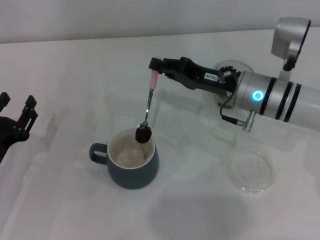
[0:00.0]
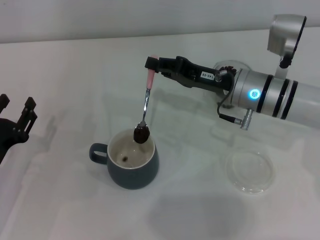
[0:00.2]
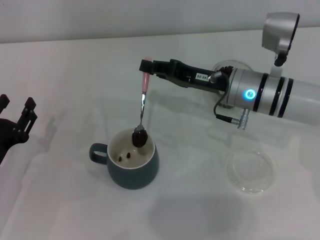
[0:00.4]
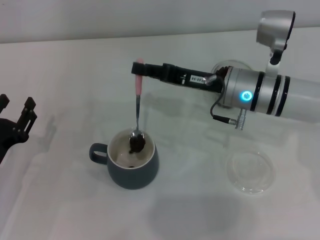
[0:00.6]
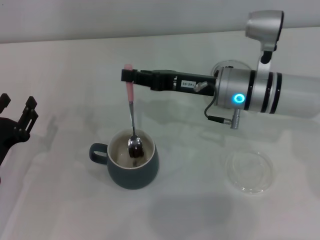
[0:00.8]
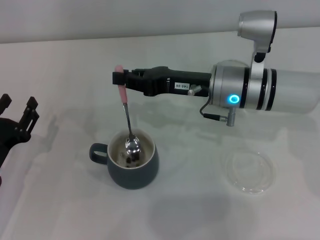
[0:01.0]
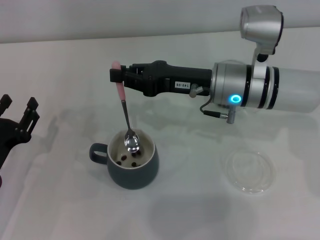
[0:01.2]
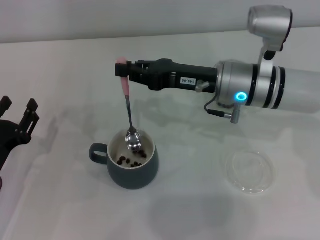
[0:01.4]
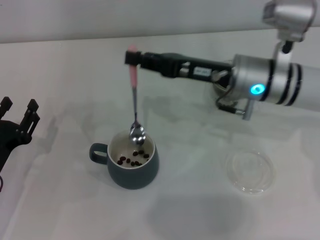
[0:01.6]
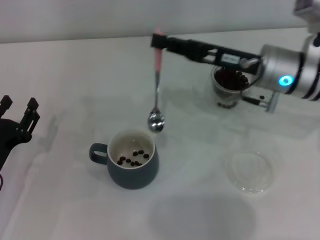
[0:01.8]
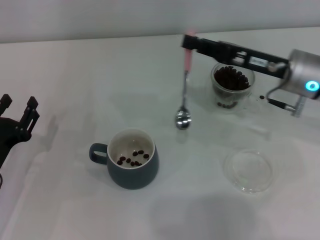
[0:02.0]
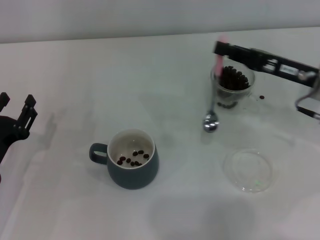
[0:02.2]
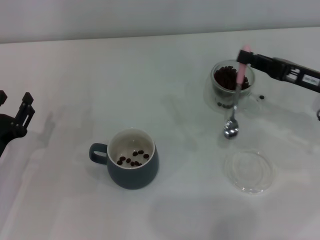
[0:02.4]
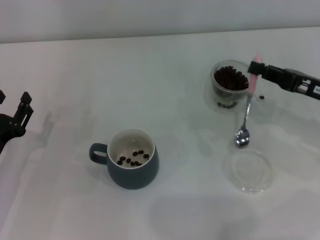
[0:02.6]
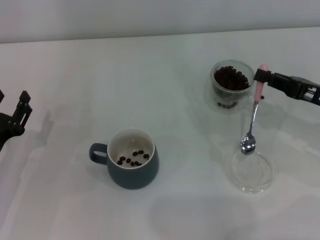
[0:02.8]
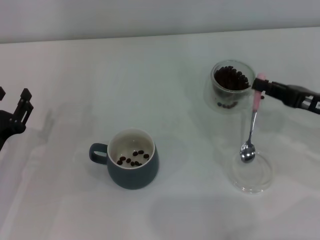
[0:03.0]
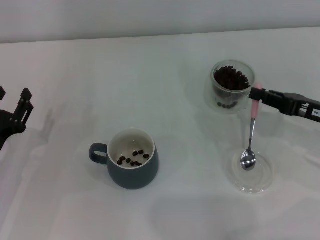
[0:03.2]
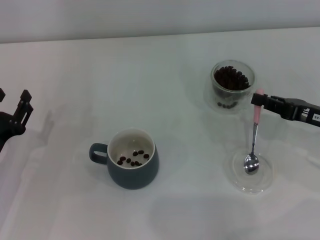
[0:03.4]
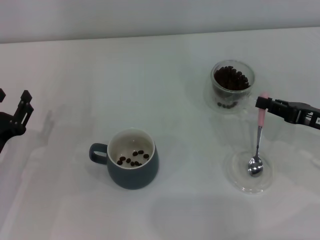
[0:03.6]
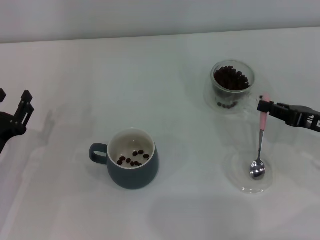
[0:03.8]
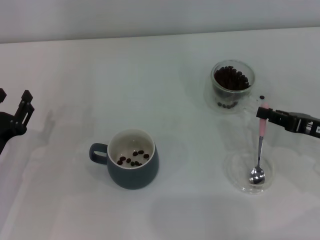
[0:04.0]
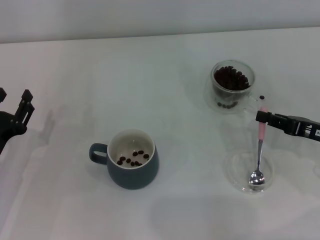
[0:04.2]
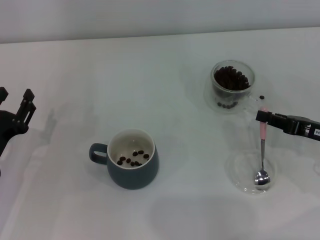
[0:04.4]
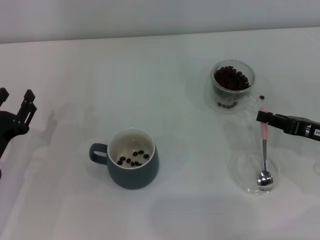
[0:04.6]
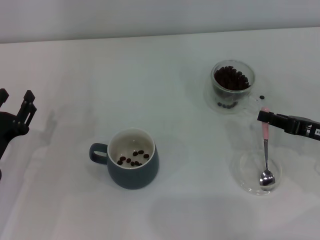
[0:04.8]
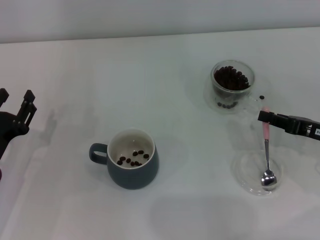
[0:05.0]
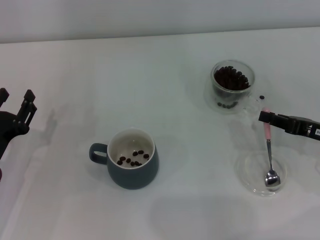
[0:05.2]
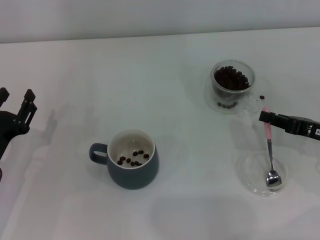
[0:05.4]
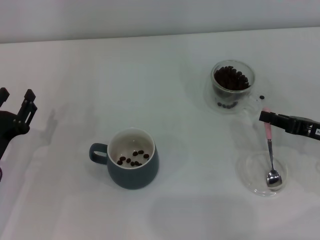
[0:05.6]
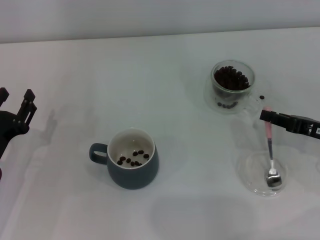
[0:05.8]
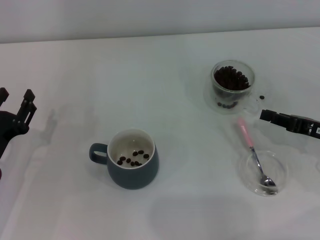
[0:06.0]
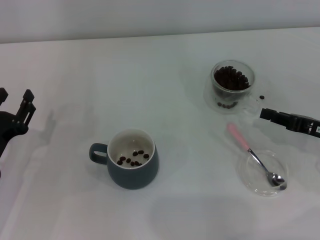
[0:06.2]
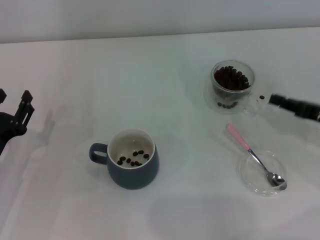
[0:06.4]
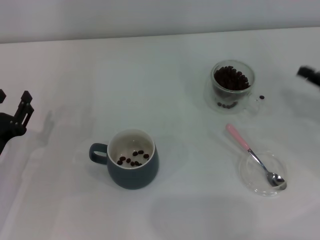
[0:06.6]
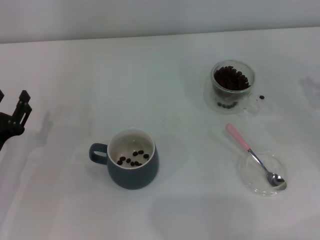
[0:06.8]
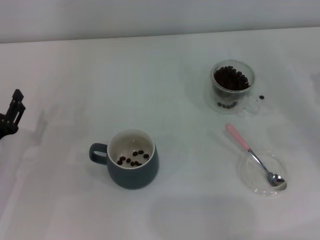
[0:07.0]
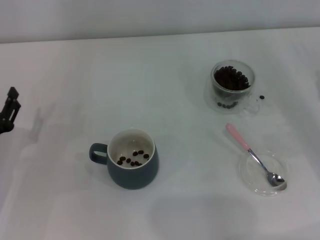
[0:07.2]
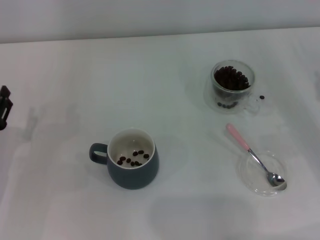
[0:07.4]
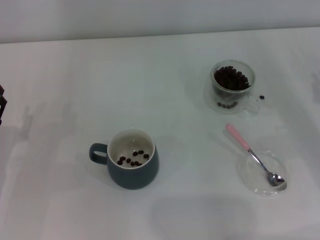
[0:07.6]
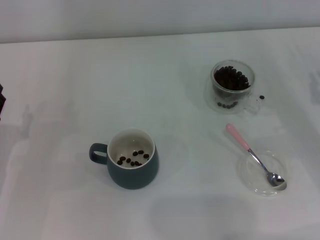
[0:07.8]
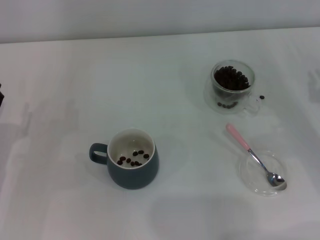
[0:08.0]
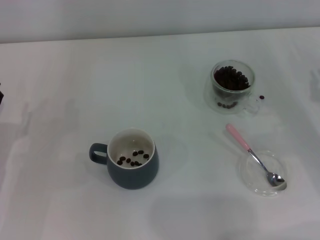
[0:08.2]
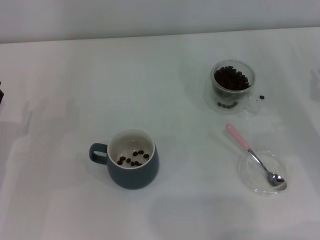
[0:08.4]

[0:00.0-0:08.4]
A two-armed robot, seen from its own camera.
Task of the whole recording: Use a pink spoon to take out the coffee beans from the glass and pour them into the gray cup.
Step, 0:01.2 to 0:05.8: Place the spoon back in its original place with the right gripper.
0:01.4 to 0:02.8: The right gripper travels to the right and backward by about 20 cm.
0:02.8 to 0:04.2: The grippers stay close to where they were, moving slightly.
0:04.2 to 0:05.6: Neither gripper changes place.
0:05.6 to 0:07.0: The right gripper moves to the right, some 5 cm.
0:07.0 to 0:08.4: There are only small adjustments of the grippers.

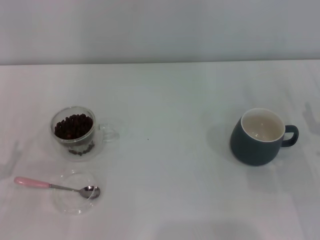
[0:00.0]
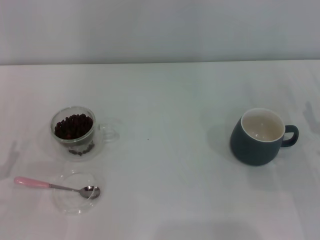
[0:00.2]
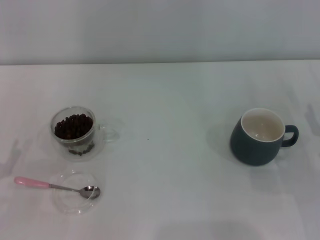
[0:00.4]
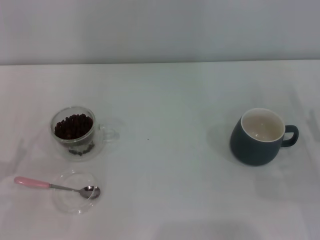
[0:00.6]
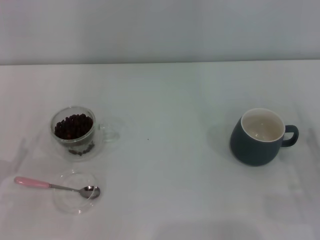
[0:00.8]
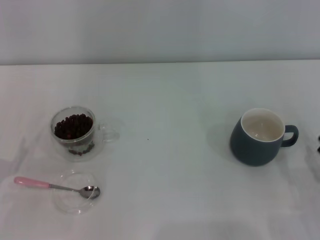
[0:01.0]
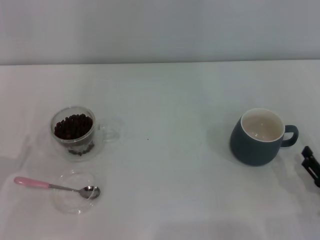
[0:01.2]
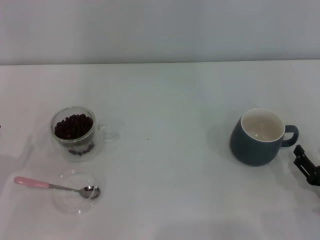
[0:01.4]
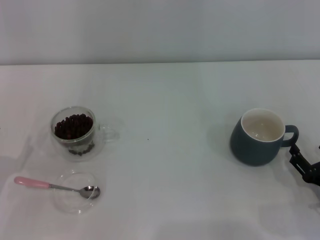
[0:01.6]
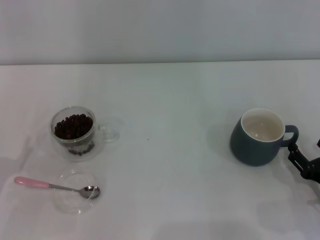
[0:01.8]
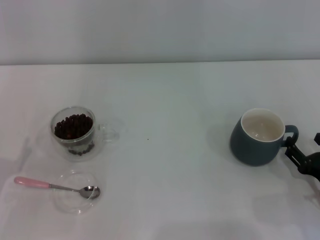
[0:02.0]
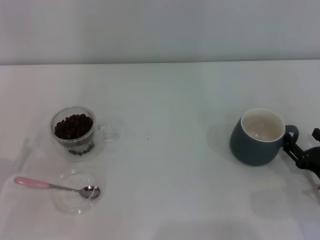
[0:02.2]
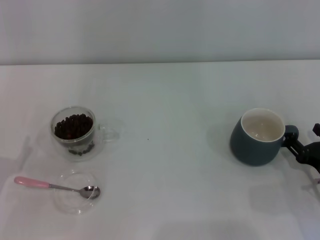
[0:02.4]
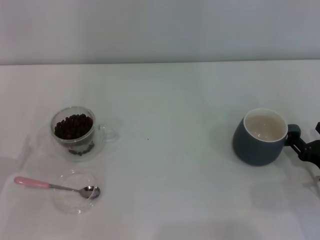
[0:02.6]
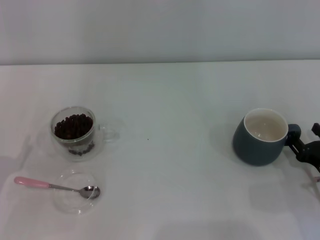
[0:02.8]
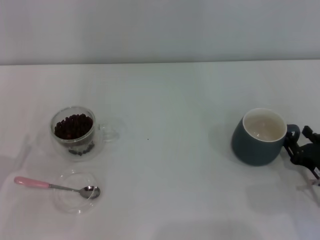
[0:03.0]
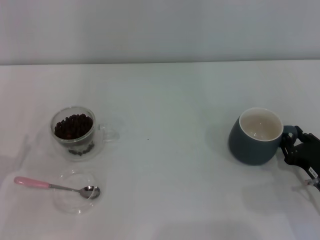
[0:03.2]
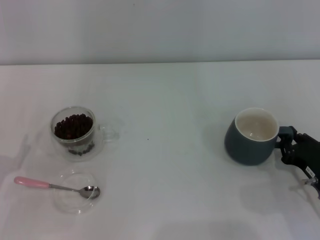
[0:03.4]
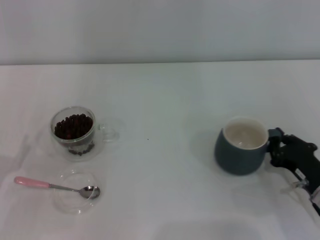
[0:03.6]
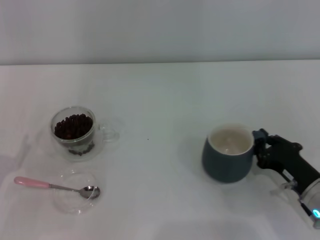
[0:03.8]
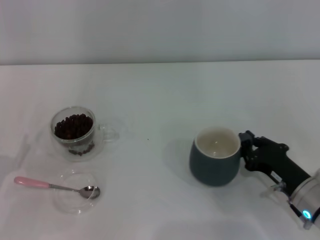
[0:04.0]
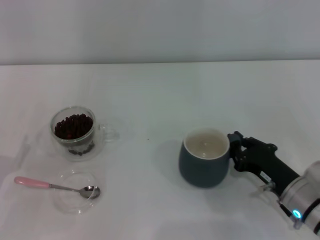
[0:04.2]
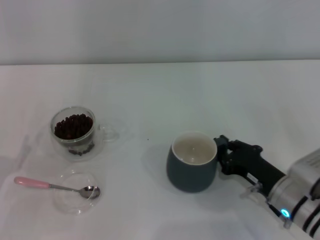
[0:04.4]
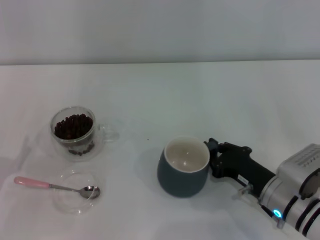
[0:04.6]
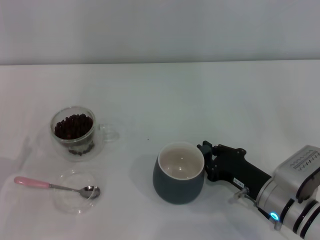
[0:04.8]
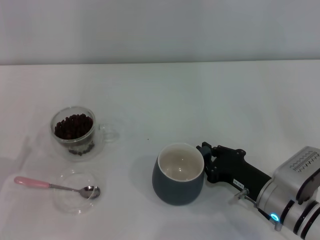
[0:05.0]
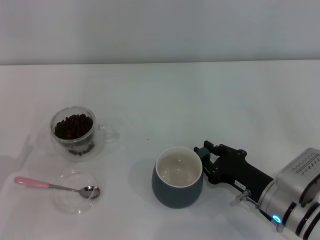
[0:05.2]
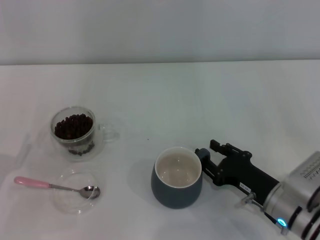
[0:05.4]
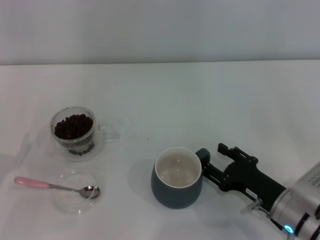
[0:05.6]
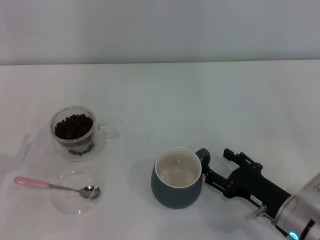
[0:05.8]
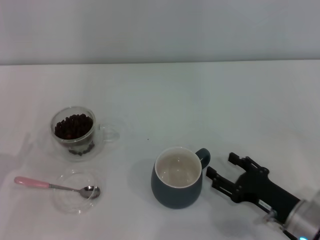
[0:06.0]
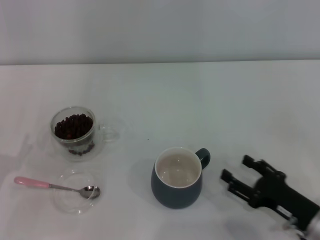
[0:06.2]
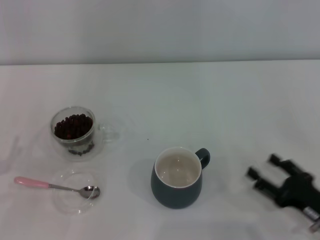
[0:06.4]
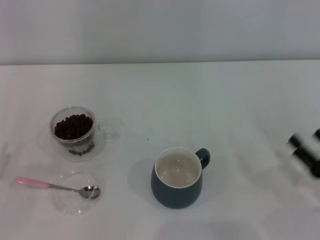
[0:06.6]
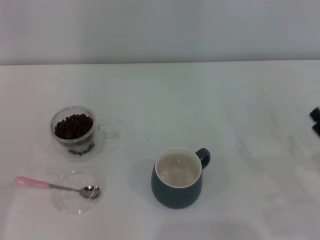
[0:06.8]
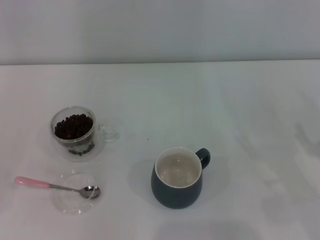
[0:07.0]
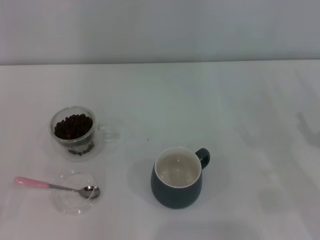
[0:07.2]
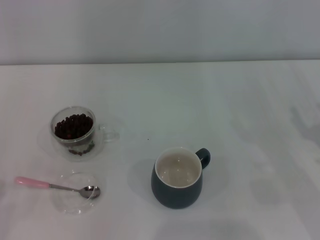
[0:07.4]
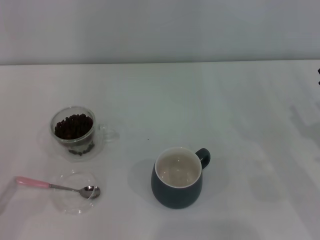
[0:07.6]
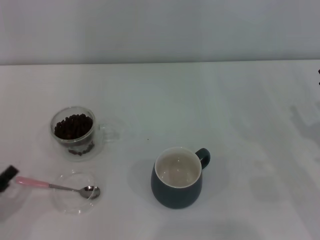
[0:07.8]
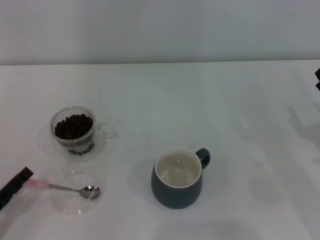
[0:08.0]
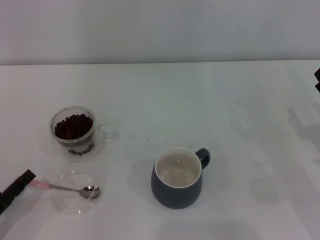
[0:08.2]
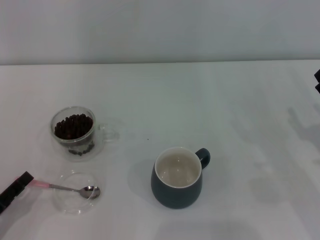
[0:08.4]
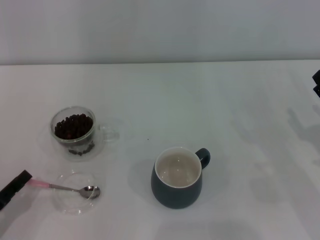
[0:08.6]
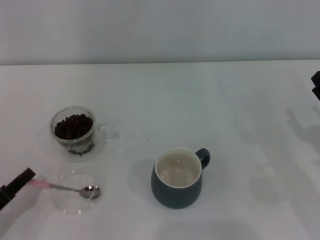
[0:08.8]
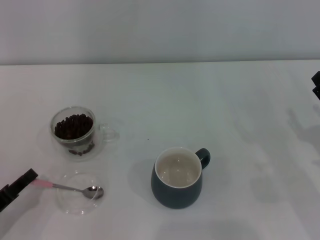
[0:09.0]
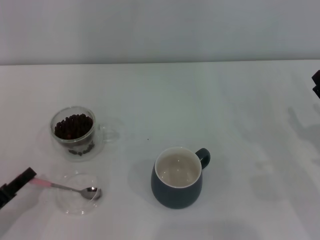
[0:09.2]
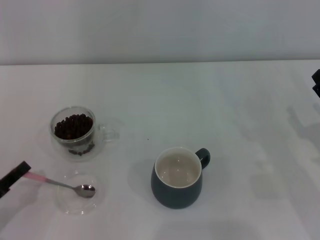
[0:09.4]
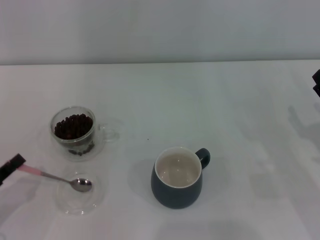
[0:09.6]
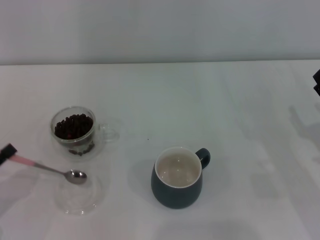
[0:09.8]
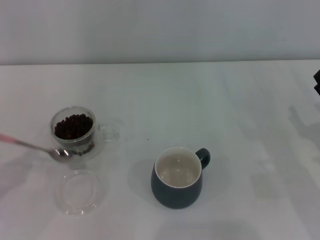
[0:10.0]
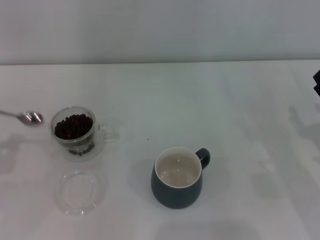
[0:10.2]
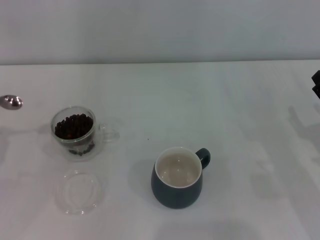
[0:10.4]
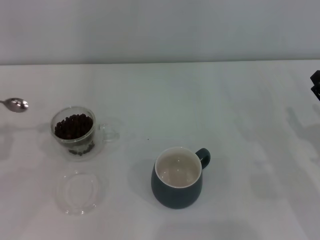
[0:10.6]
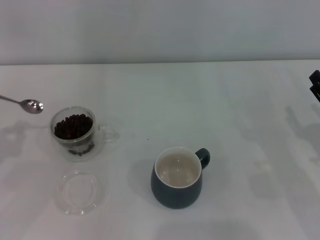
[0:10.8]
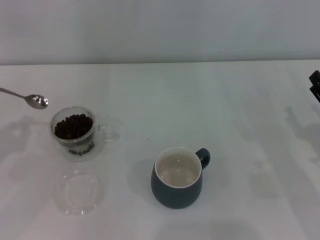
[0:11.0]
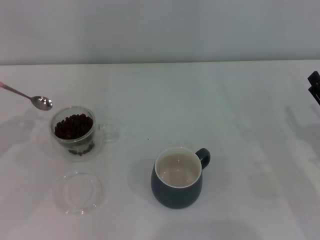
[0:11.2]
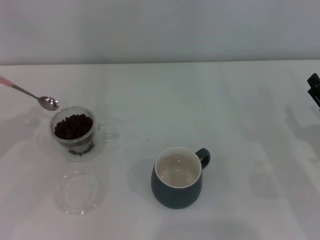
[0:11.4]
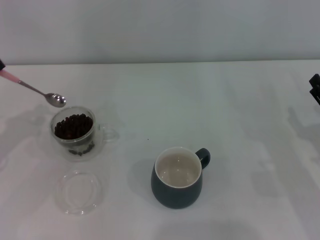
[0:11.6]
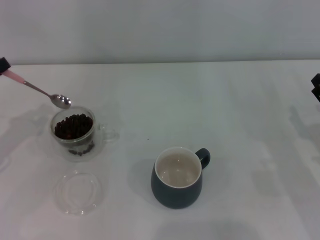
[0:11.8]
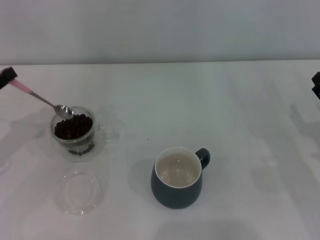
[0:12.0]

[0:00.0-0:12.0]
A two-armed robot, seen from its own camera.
Task of the whole recording: Use a pink spoon to take out the coffee beans from the glass and pour them into the gray cup.
Step, 0:00.0 to 0:06.4: Move the cup to the center of view with the left gripper.
Step, 0:06.6 to 0:09.8: Pick up the spoon with the right gripper.
0:00.0 to 0:01.6: The right gripper shifts roughly 5 cm backward.
0:01.6 to 0:03.0: The grippers stay close to where they were, moving slightly.
0:03.0 to 0:04.4: The right gripper is displaced to the left by about 10 cm, and closes its fingers.
0:04.4 to 0:06.0: The right gripper opens.
0:06.0 to 0:07.6: The right gripper travels to the right and upward by roughly 10 cm.
0:07.6 to 0:09.0: The left gripper closes.
0:09.0 to 0:10.4: The left gripper moves upward and to the left, approximately 15 cm.
0:10.4 to 0:12.0: The left gripper heads forward, covering roughly 10 cm.

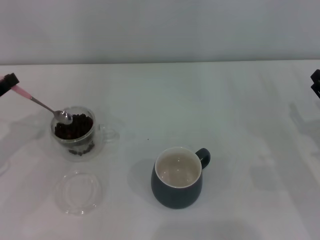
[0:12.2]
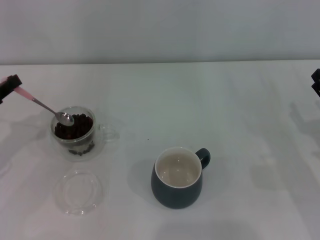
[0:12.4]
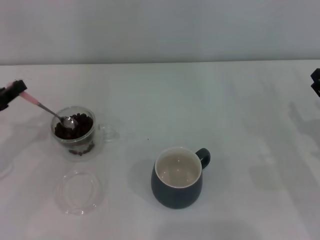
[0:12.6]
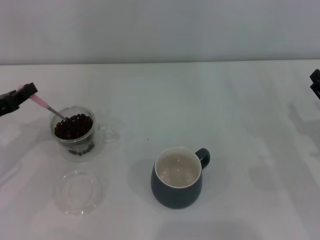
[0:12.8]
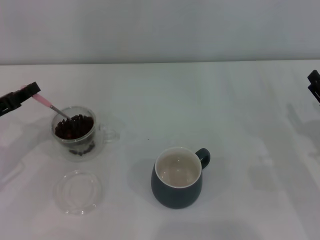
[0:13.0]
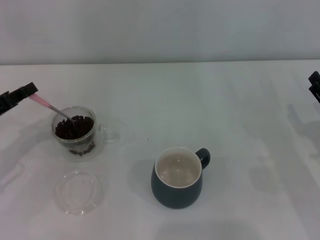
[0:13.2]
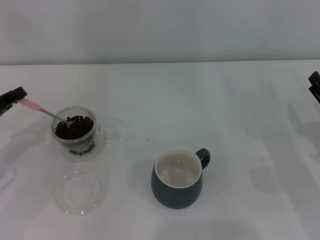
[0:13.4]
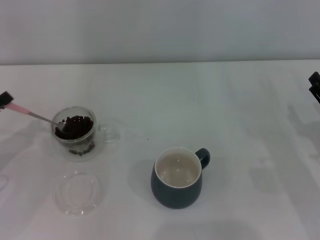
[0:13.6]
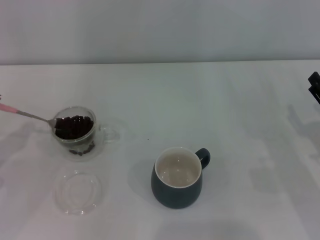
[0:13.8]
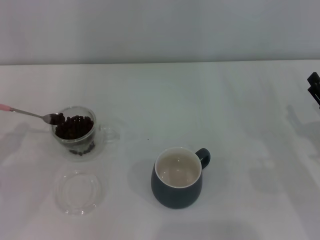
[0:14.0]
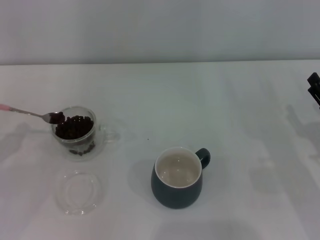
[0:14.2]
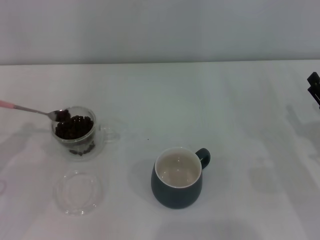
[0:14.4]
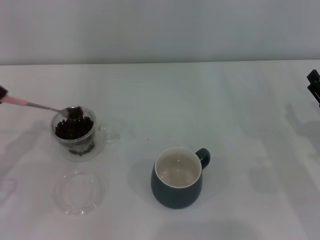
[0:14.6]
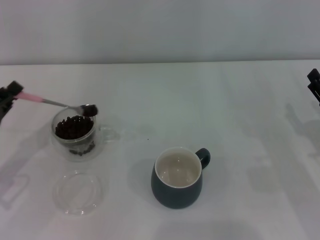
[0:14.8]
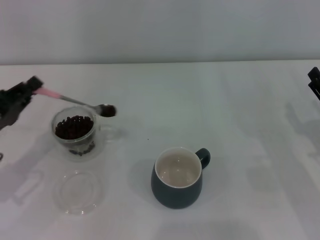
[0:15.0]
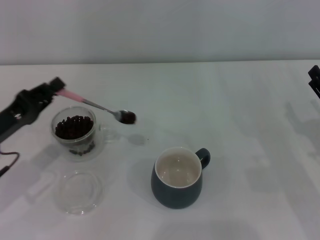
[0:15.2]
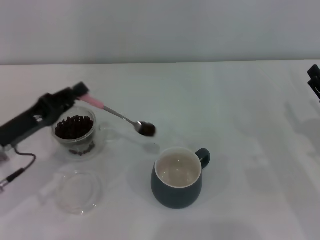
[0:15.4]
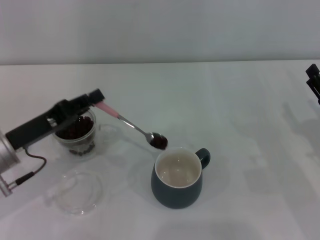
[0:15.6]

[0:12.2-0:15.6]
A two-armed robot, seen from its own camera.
Task of the whole recording: Use a pink spoon to take out the coffee beans from the glass and pour them into the gray cup.
0:13.8 to 0:15.6: The left gripper travels to the right by approximately 10 cm.
